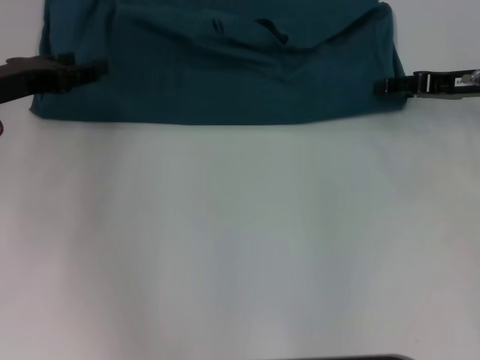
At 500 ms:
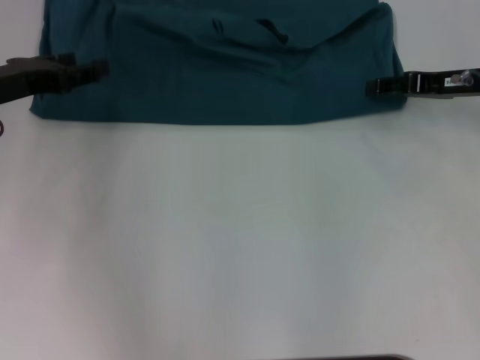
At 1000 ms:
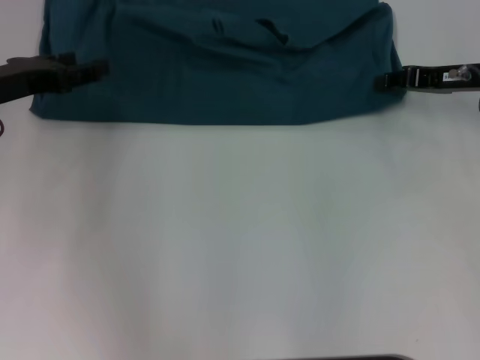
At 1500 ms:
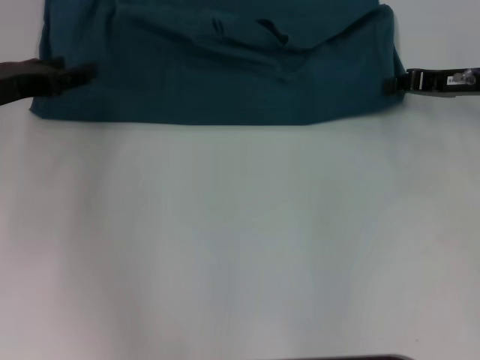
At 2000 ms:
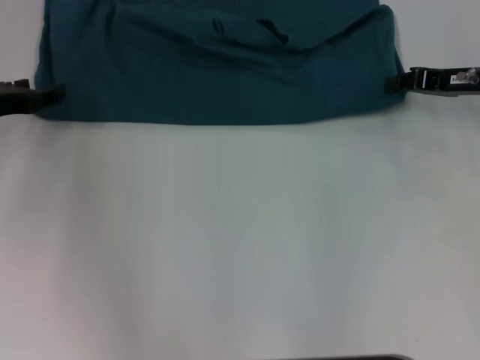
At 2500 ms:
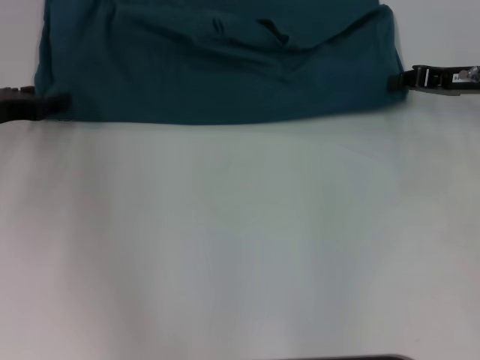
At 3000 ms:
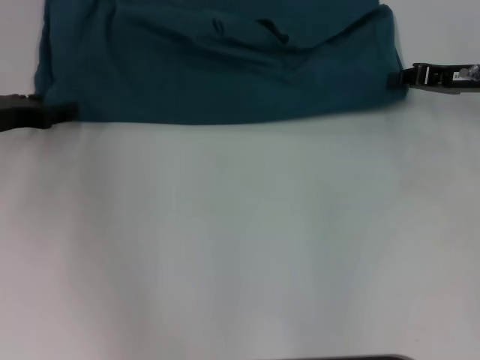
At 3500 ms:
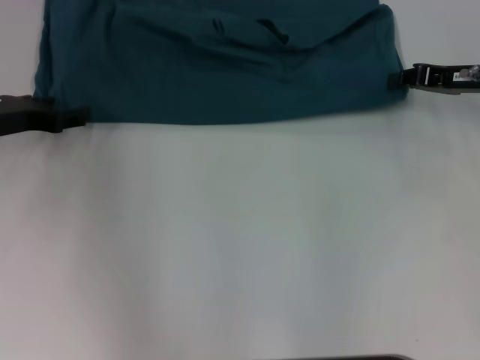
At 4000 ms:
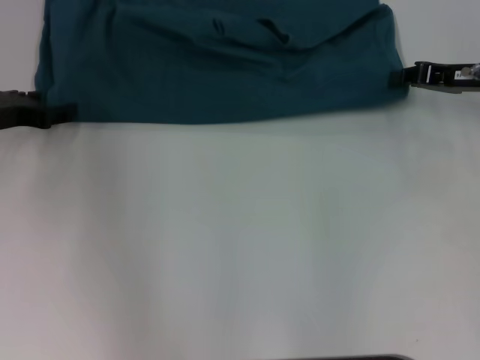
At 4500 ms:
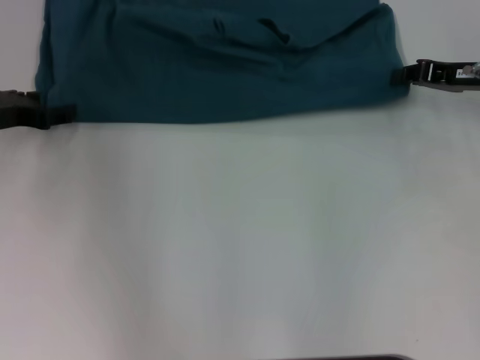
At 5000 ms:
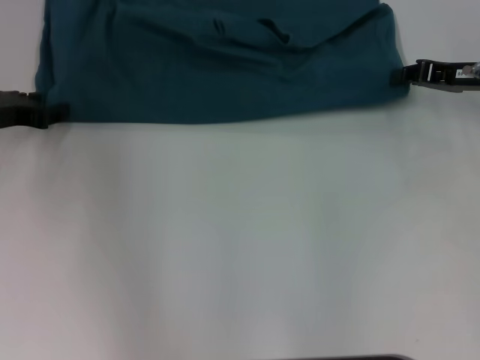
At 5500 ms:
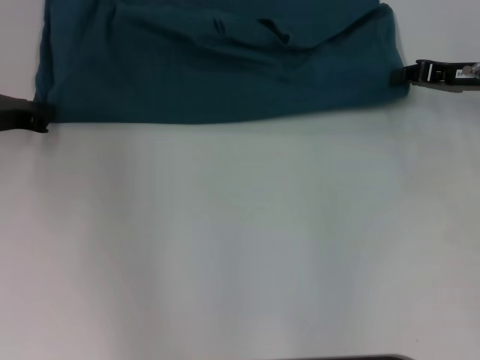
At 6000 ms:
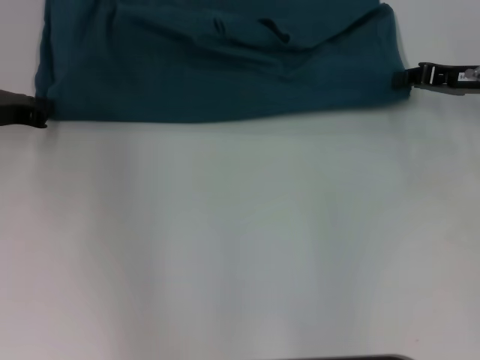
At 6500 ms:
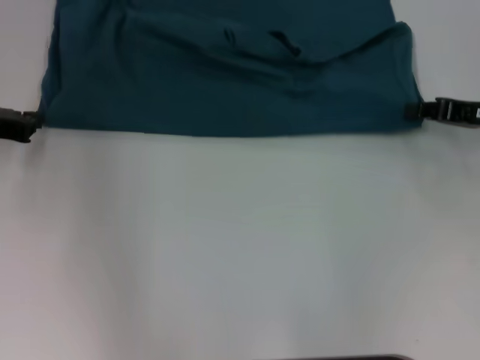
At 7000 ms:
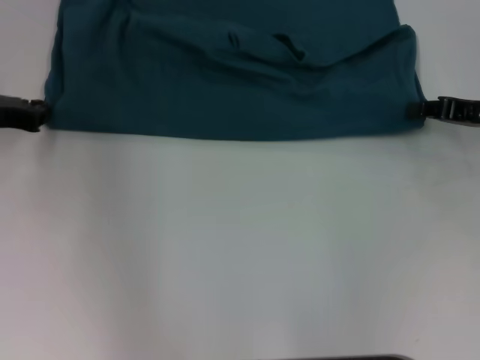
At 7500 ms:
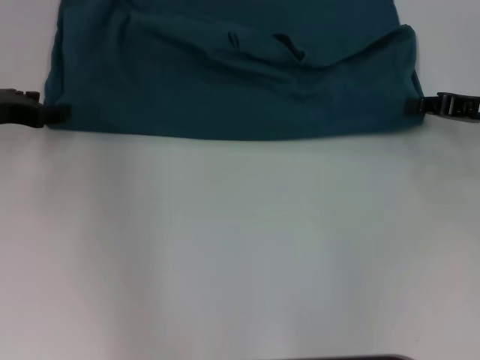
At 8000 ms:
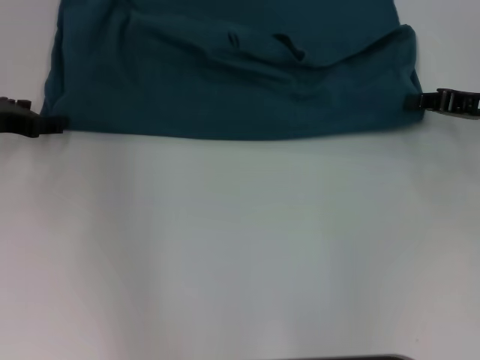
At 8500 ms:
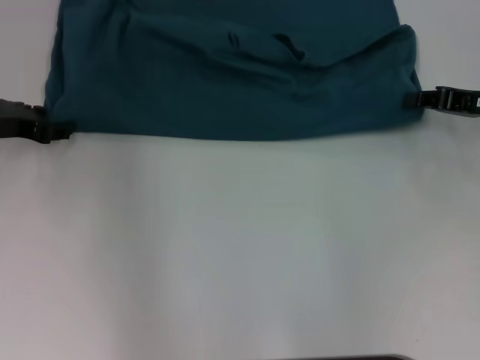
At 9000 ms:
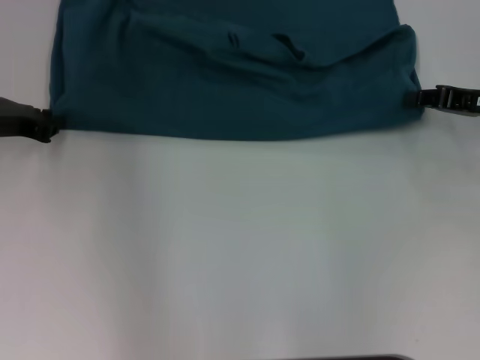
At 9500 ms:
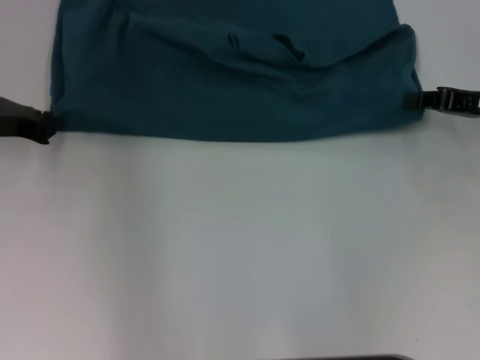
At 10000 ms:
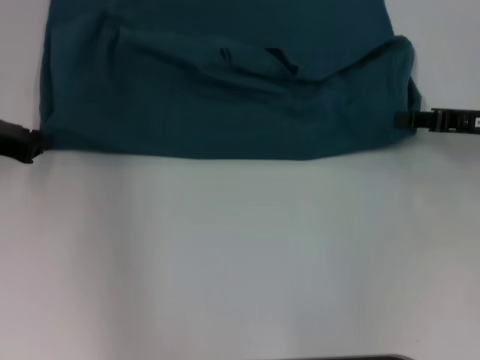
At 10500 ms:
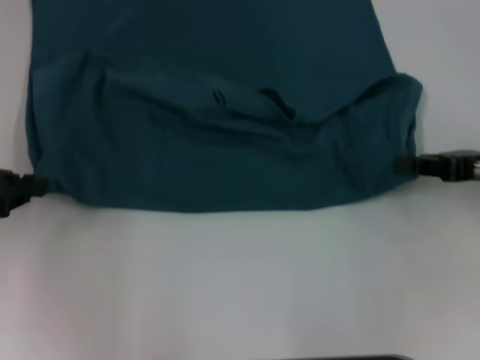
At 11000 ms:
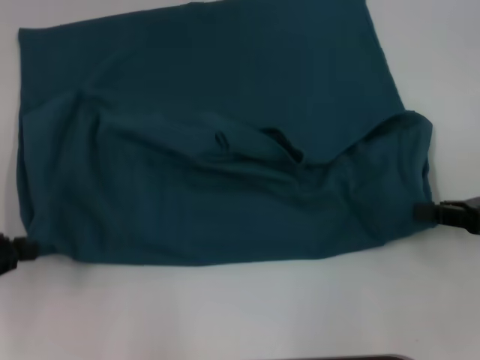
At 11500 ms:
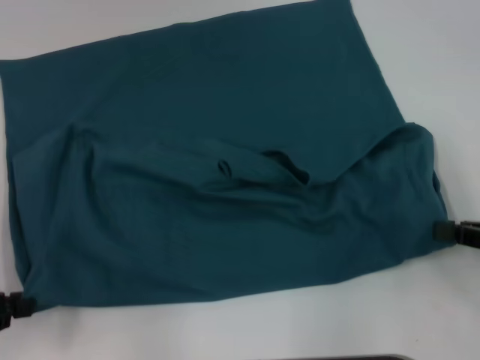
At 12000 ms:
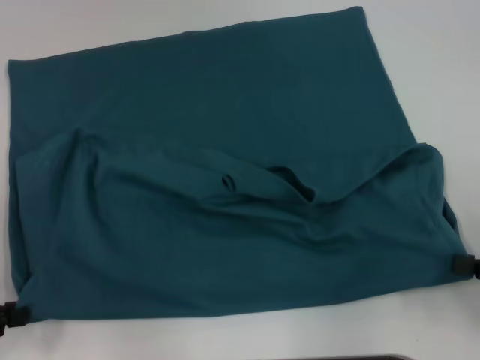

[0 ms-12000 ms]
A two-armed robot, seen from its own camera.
0 ms to 2000 ms: The right gripper closes up.
2000 ms to 4000 ms: The grippers stay close to where they were, moving slightly.
6000 ms to 8000 ms: The left gripper opens up.
8000 ms to 10000 ms: The left gripper closes up.
10000 ms to 12000 ms: The grippers both shift backward by roughly 15 cm.

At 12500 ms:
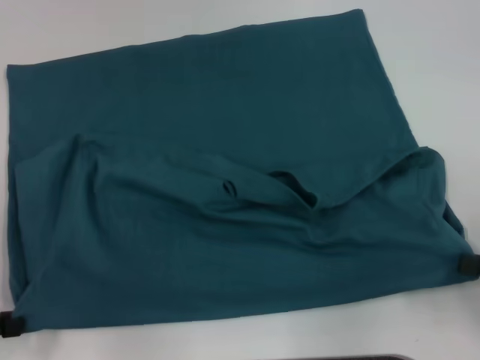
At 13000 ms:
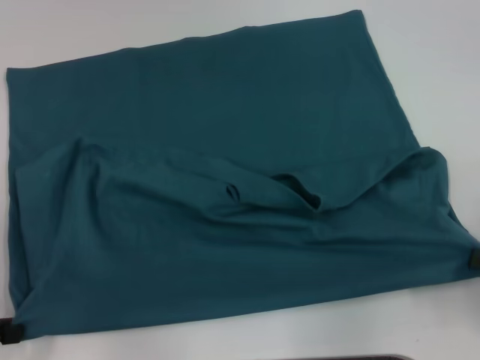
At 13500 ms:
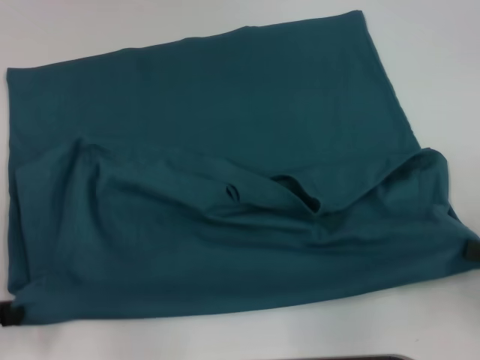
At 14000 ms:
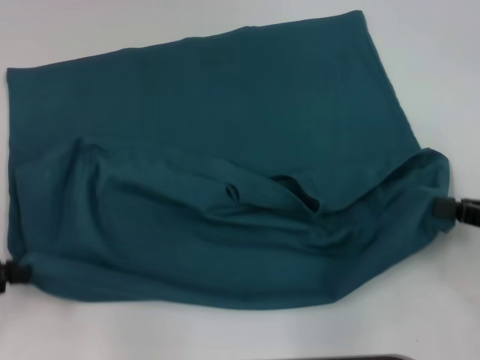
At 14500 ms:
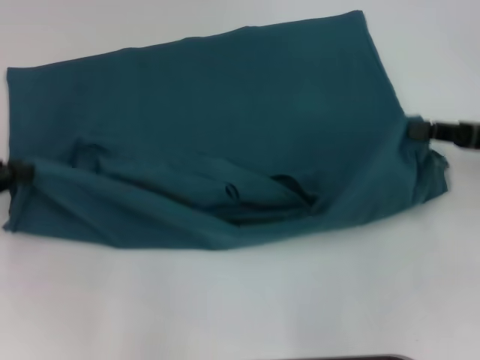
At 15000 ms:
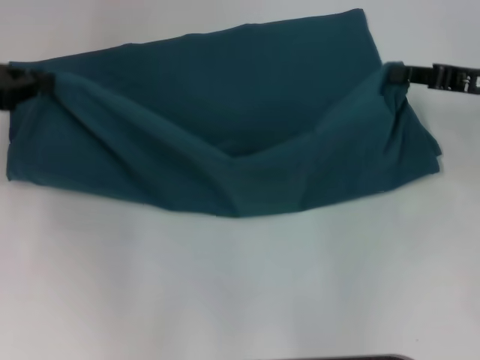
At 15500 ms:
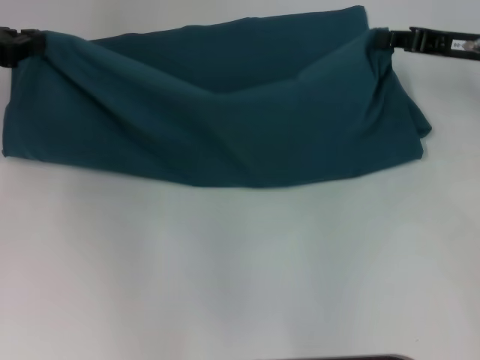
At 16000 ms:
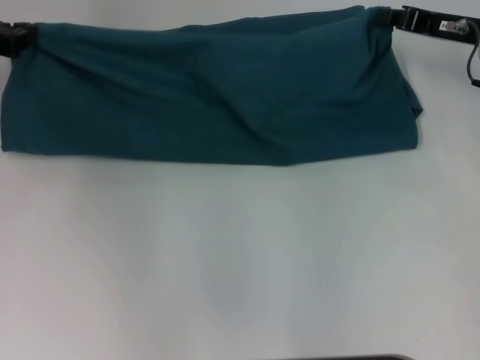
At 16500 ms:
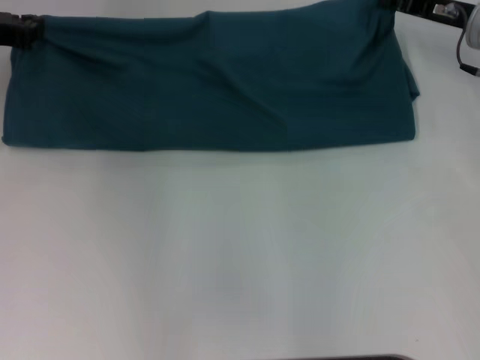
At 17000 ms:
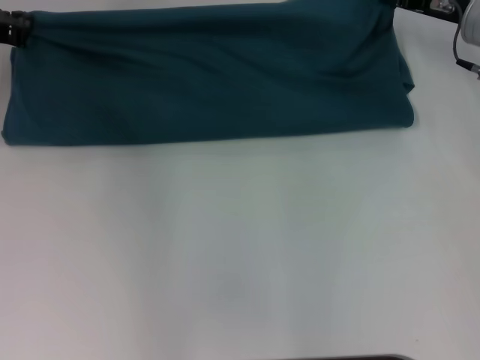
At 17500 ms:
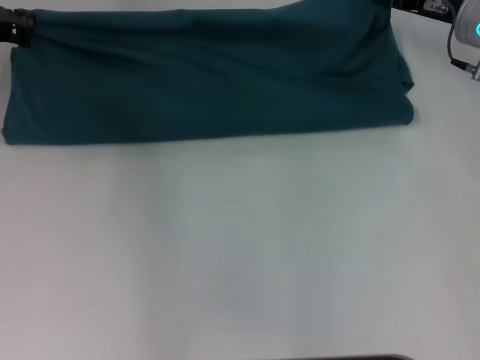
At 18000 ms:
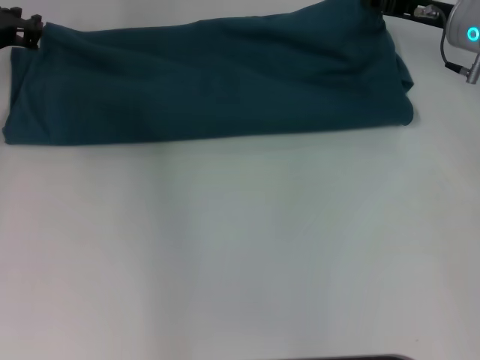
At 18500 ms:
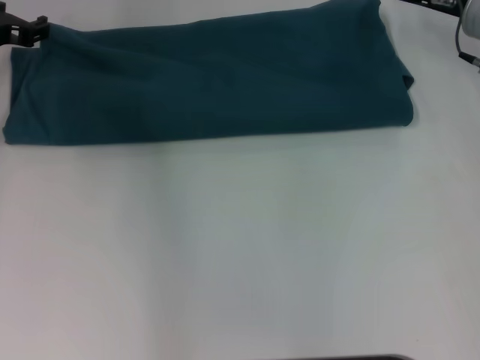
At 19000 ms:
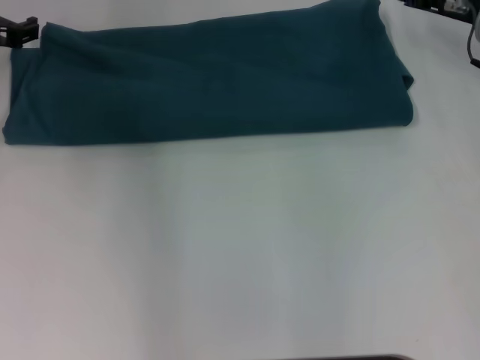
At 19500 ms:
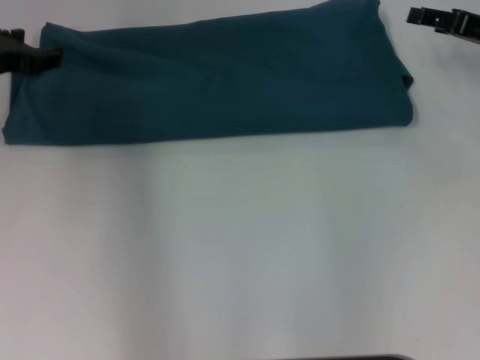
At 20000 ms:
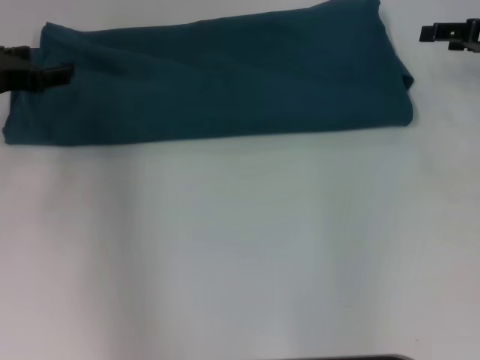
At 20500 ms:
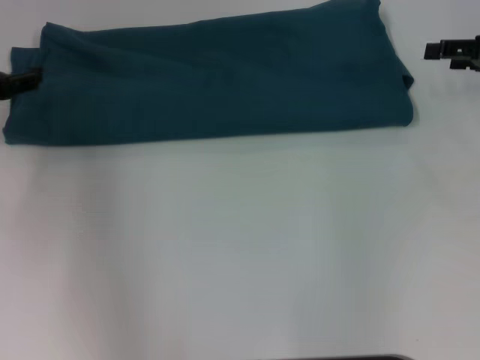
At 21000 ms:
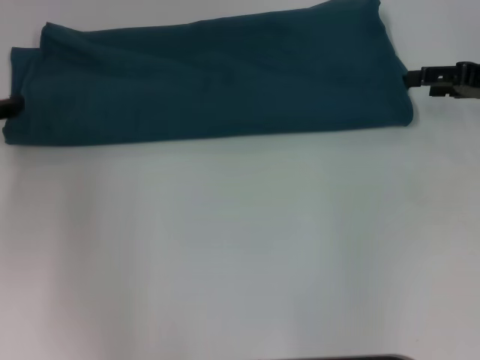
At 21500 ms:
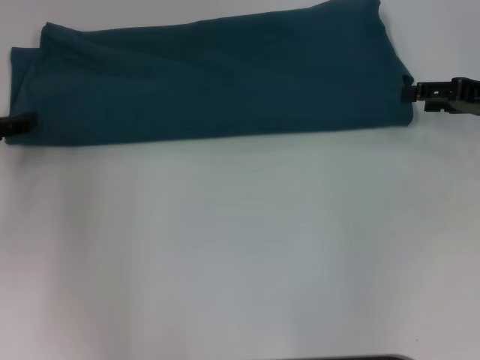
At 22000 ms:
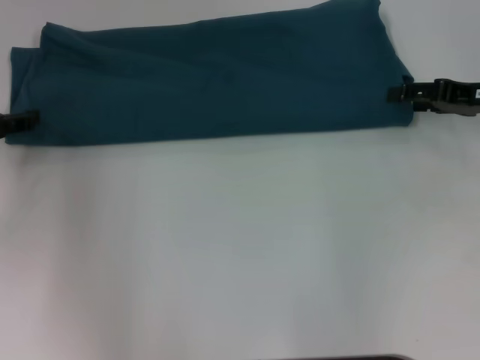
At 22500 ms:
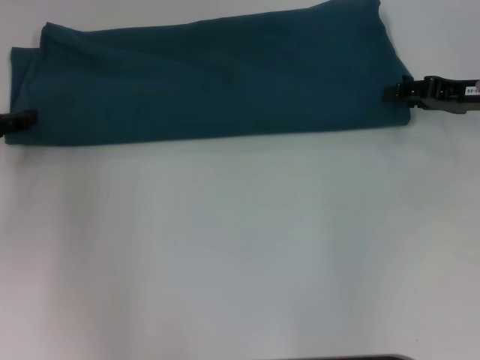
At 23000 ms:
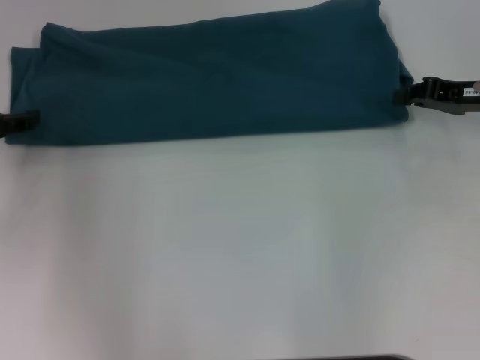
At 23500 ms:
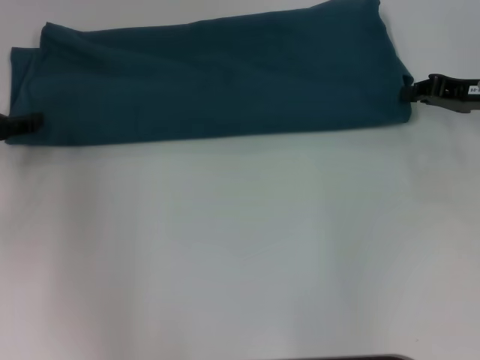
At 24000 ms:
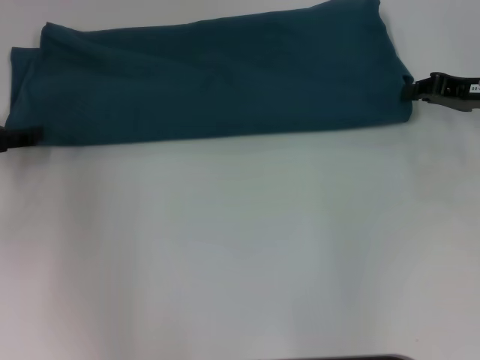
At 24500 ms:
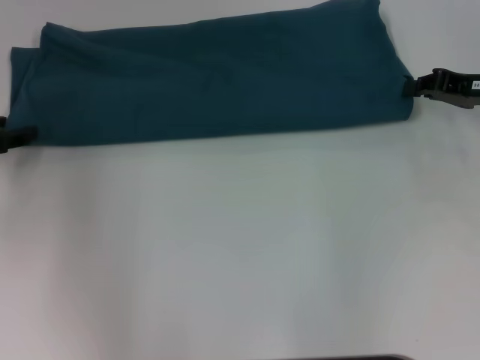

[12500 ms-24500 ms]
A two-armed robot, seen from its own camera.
Step, 13000 ms to 18500 ms: Fold the clothes to the left.
Step, 13000 ms to 18500 ms: Fold the clothes to the right.
12500 ms to 14500 ms: The grippers both shift forward by about 10 cm.
14500 ms to 16500 ms: The right gripper travels forward and to the left by some 15 cm. Meanwhile the left gripper moves forward and to the right, roughly 15 cm.
16500 ms to 18500 ms: The right gripper opens up. Meanwhile the left gripper opens its fingers.
18500 ms to 20500 ms: The right gripper travels to the right and backward by some 10 cm. The left gripper heads backward, covering approximately 10 cm.
20500 ms to 22500 ms: The right gripper moves roughly 5 cm.
22500 ms to 24500 ms: The right gripper closes.

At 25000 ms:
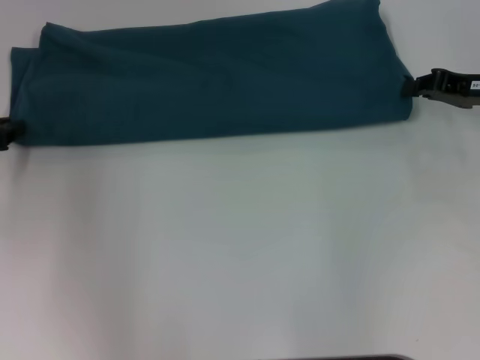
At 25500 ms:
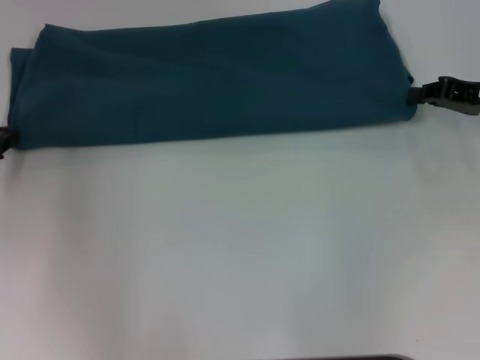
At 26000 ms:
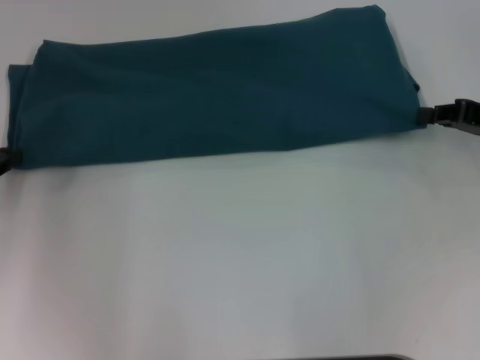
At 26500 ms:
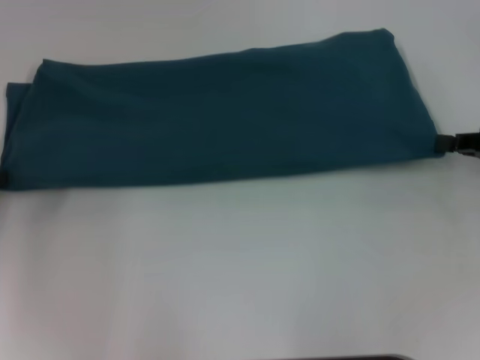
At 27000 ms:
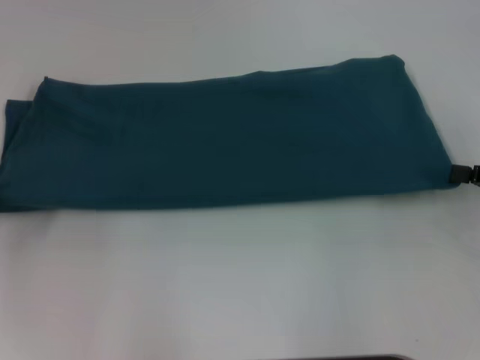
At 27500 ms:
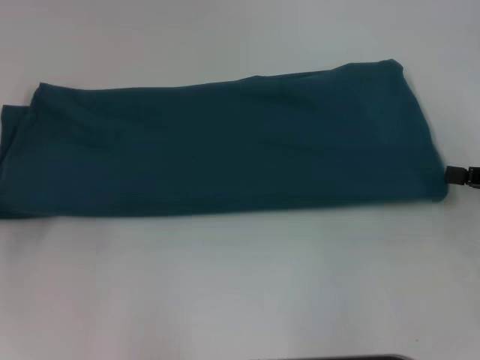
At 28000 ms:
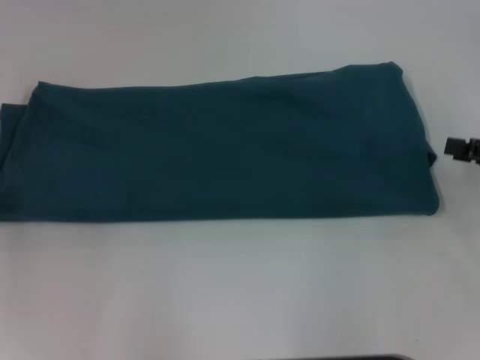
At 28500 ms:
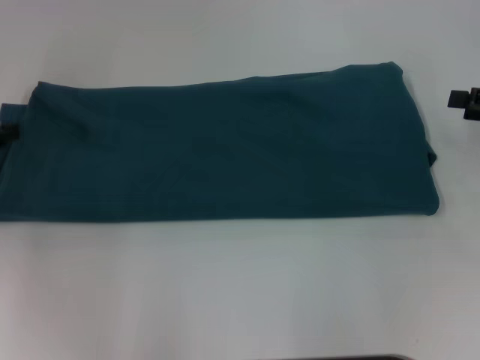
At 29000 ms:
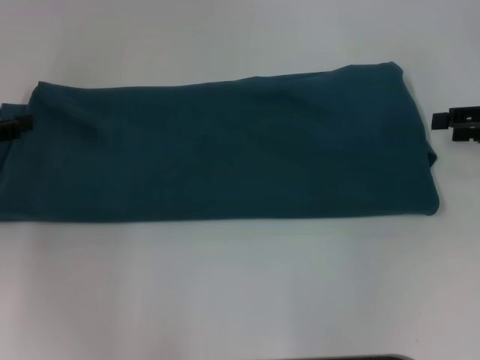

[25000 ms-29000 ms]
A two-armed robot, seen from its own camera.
Step, 25000 ms to 27500 ms: Pull the clothes with your left hand.
Step, 25000 ms to 27500 ms: Pull the clothes with your right hand.
25000 ms to 27000 ms: The right gripper shifts approximately 15 cm backward and to the right, while the left gripper travels backward by approximately 10 cm.
27000 ms to 29000 ms: The right gripper is displaced forward by roughly 5 cm, and opens up, while the left gripper shifts by some 5 cm, and opens its fingers.
